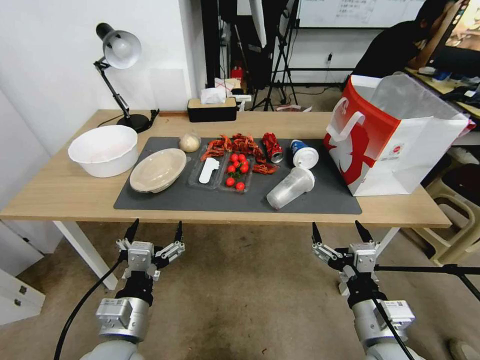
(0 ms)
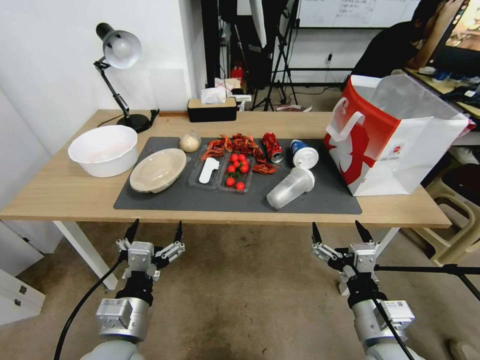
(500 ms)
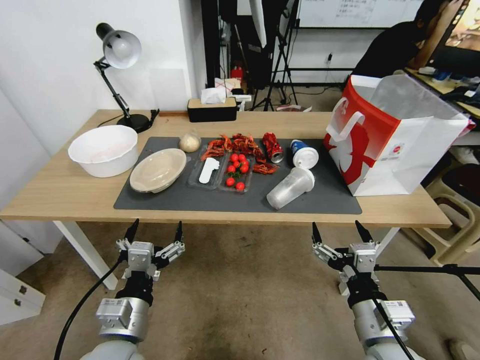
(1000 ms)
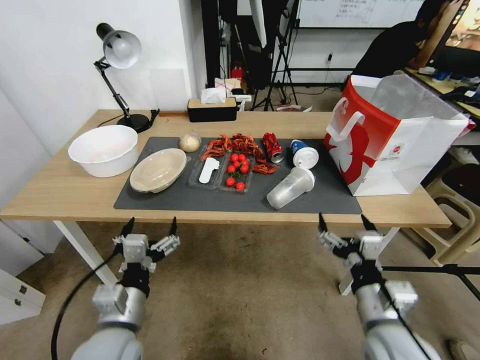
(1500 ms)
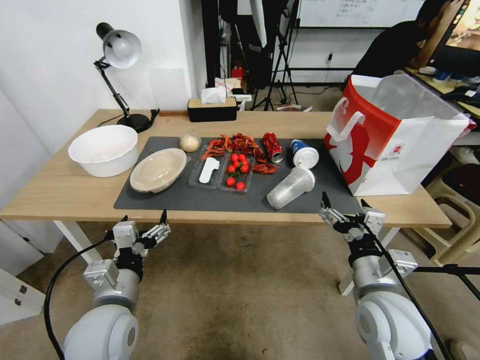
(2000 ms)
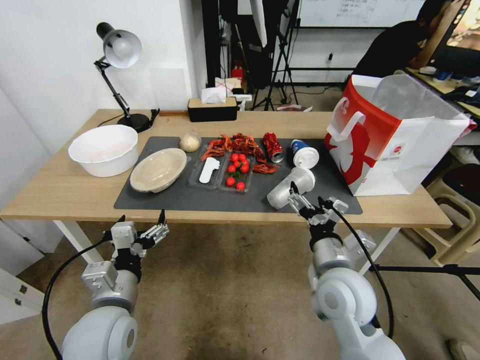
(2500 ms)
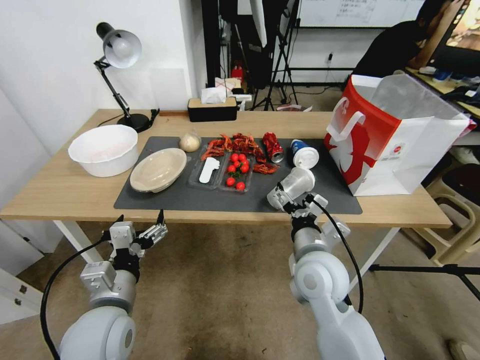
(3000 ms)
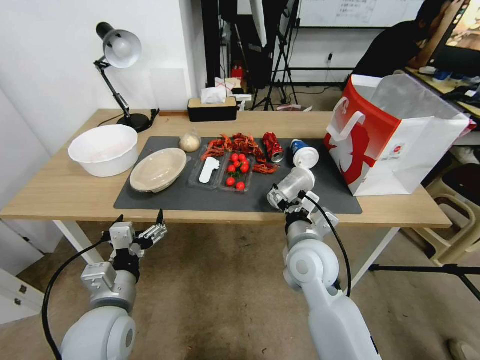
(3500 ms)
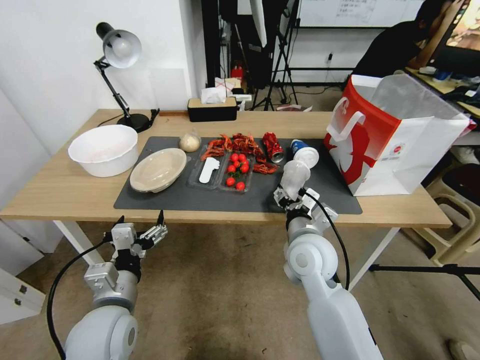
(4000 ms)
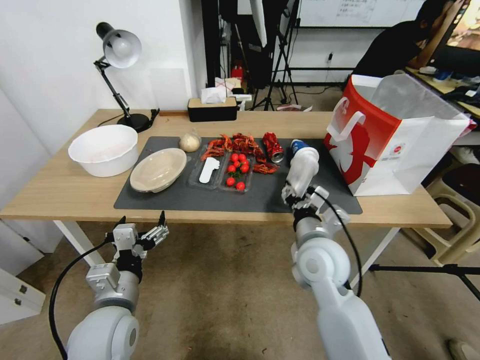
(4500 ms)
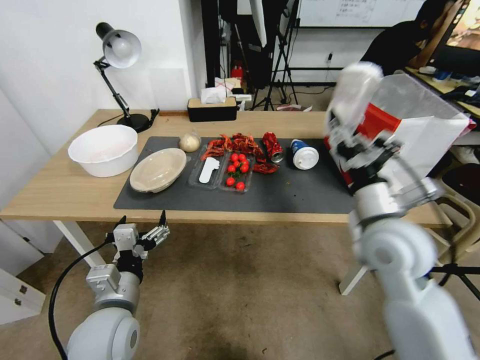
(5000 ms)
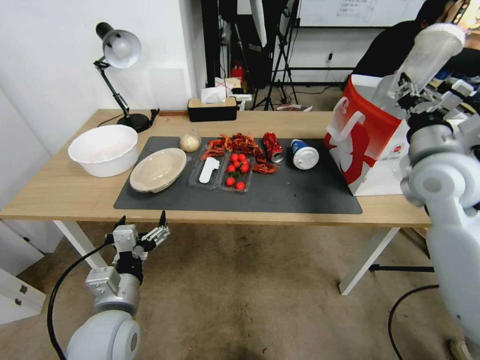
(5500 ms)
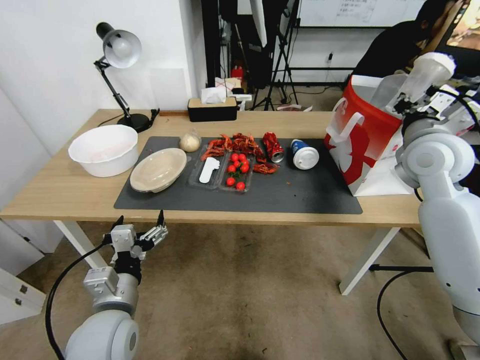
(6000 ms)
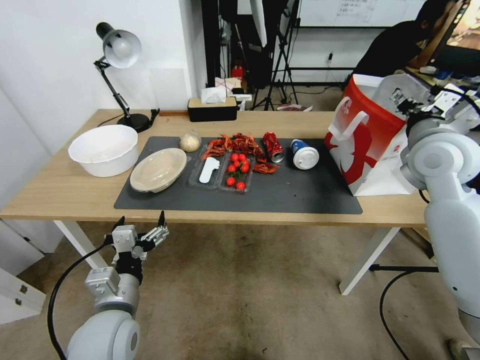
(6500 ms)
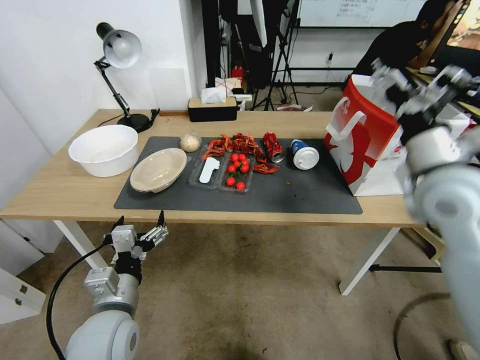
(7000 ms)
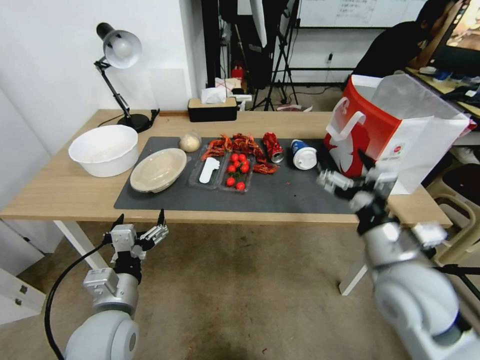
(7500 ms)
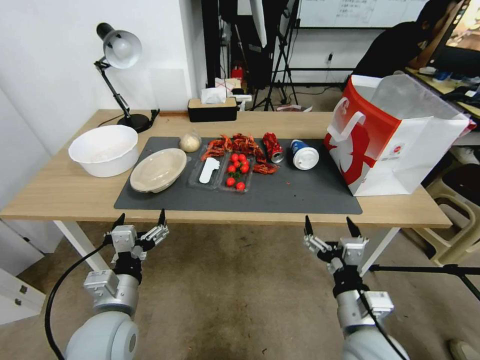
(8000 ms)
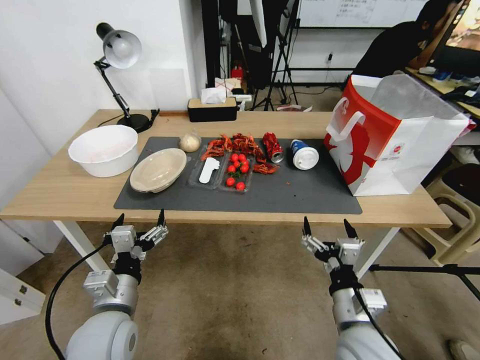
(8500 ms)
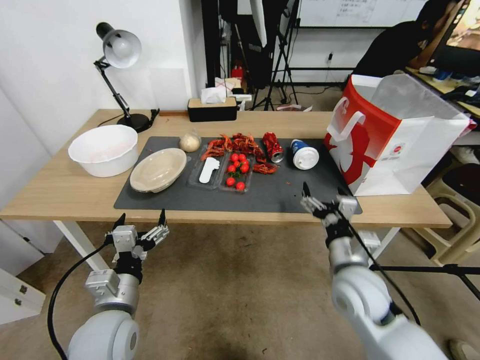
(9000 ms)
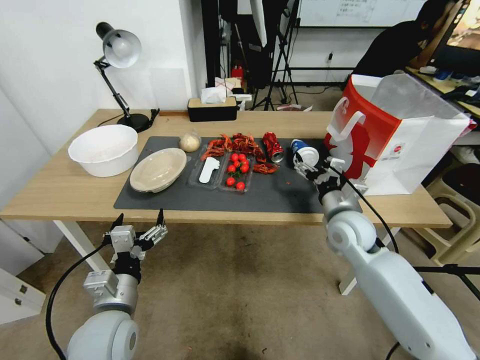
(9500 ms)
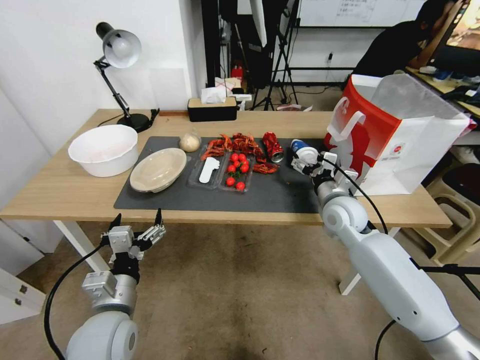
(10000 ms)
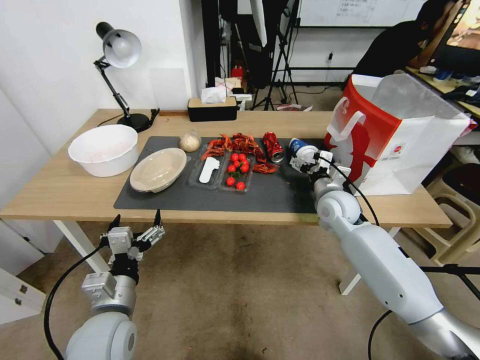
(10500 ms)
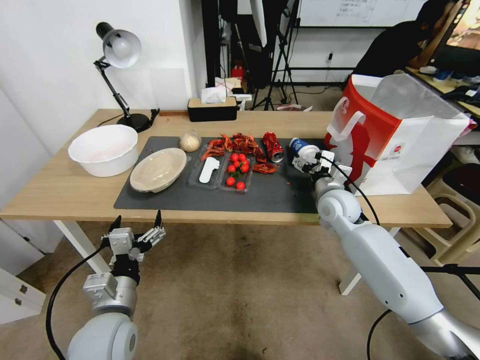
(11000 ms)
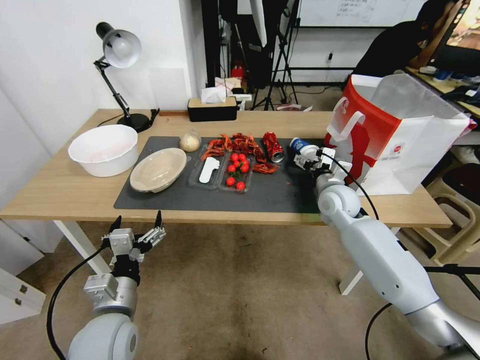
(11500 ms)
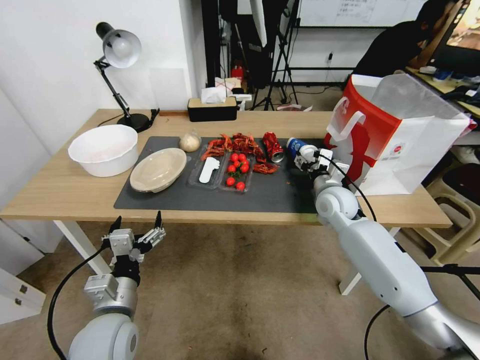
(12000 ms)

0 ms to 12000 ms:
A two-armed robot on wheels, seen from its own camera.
2000 ms to 4000 ms: The right gripper goes approximately 15 cm forward and to the left, and closes.
4000 ms to 6000 ms: The right gripper heads to the right, upward and forward, covering roughly 30 cm, and closes its fingers.
6000 ms to 8000 ms: The right gripper is displaced backward, downward and to the left by some 35 cm, and opens.
8000 ms to 10000 ms: The right gripper shifts some 25 cm forward.
10000 ms to 12000 ms: The right gripper closes its fingers.

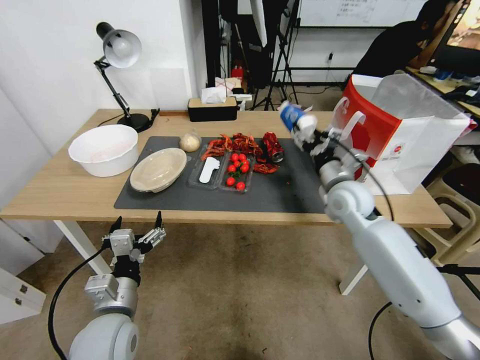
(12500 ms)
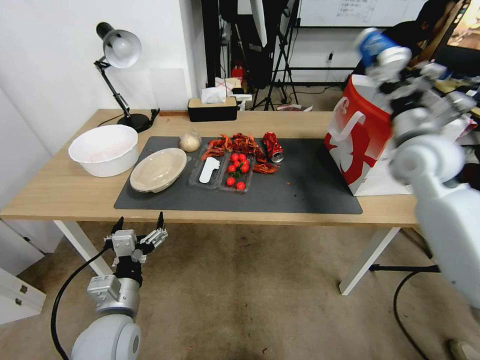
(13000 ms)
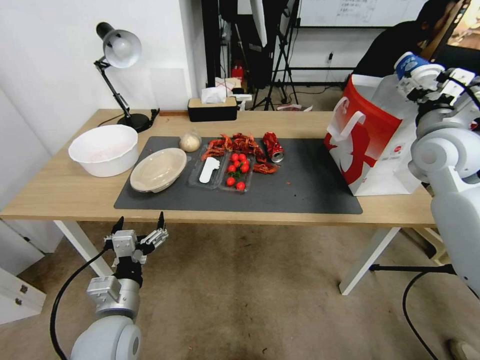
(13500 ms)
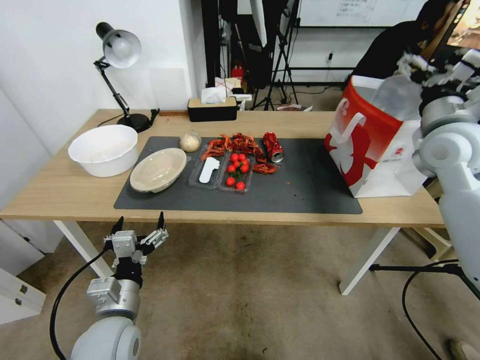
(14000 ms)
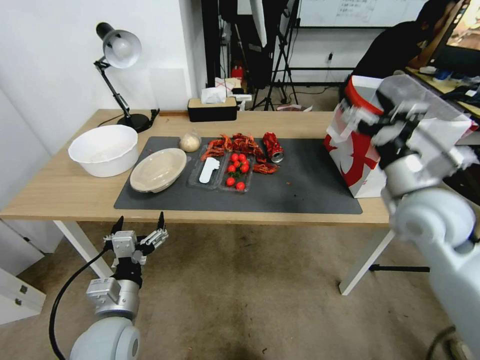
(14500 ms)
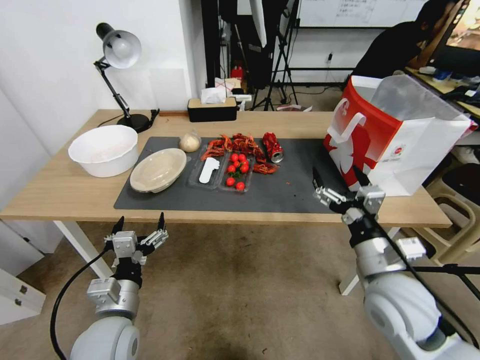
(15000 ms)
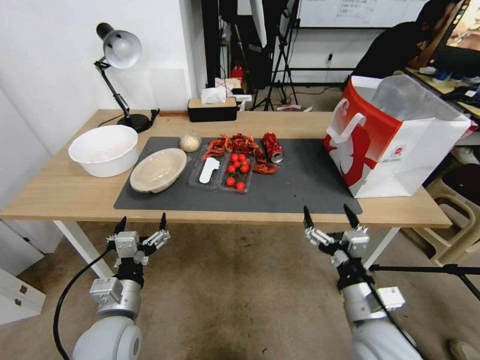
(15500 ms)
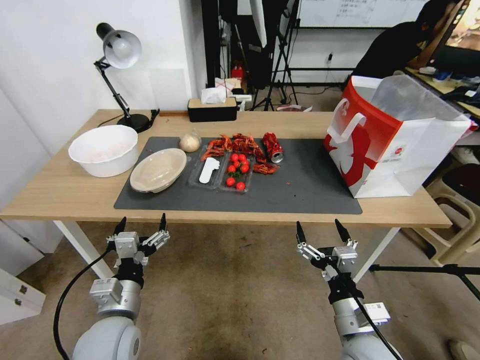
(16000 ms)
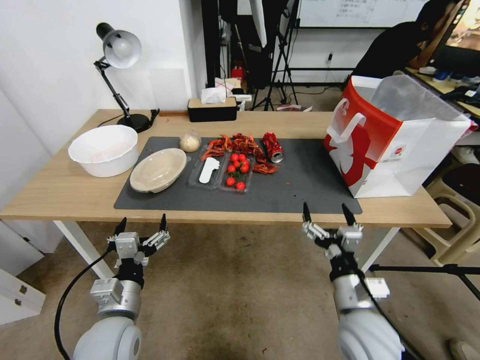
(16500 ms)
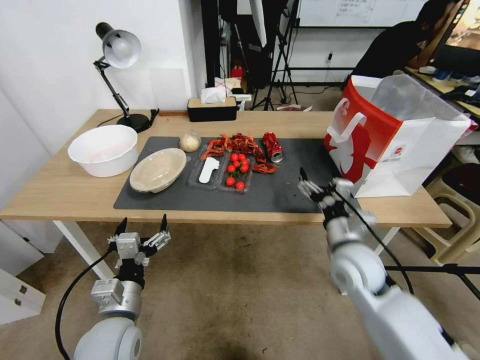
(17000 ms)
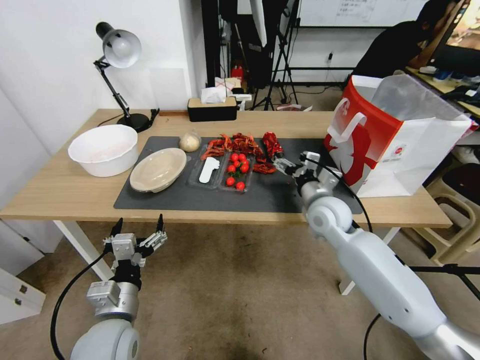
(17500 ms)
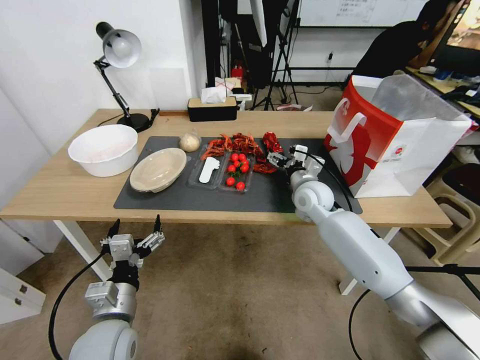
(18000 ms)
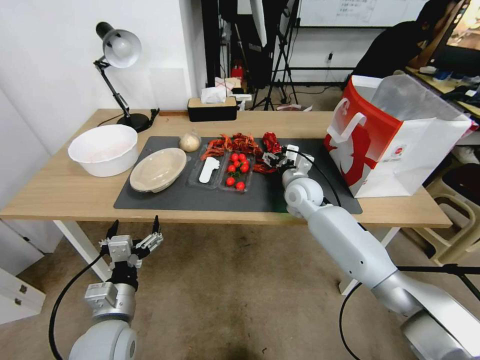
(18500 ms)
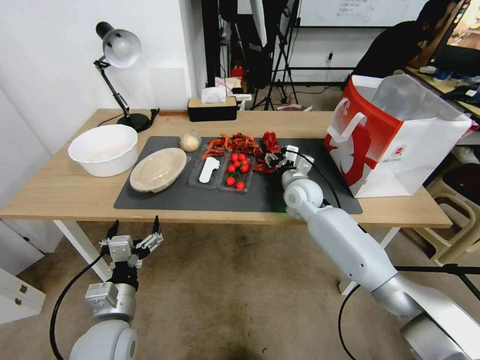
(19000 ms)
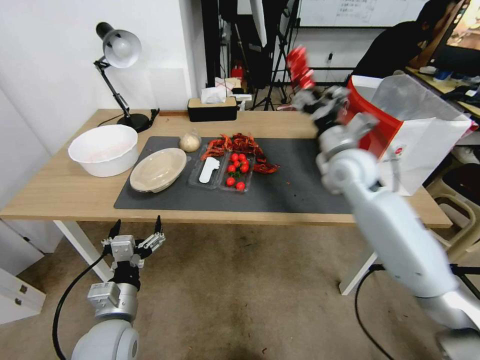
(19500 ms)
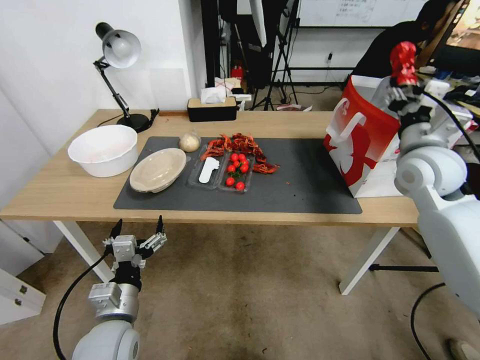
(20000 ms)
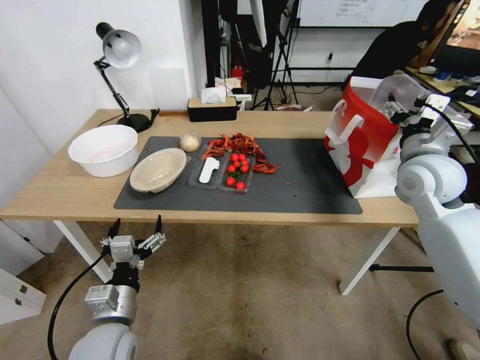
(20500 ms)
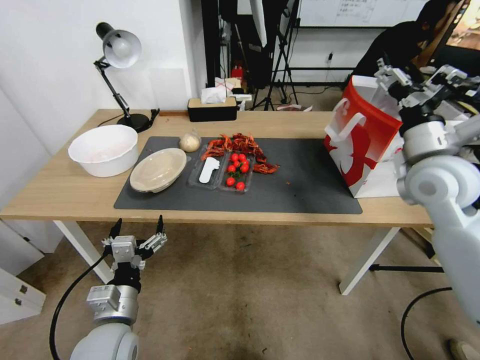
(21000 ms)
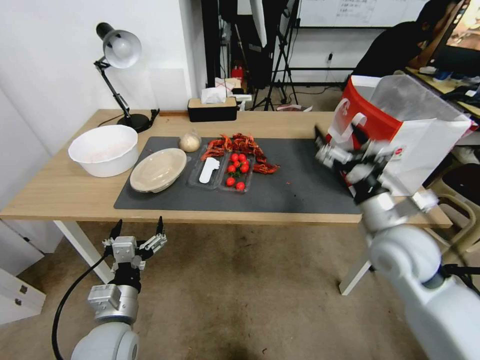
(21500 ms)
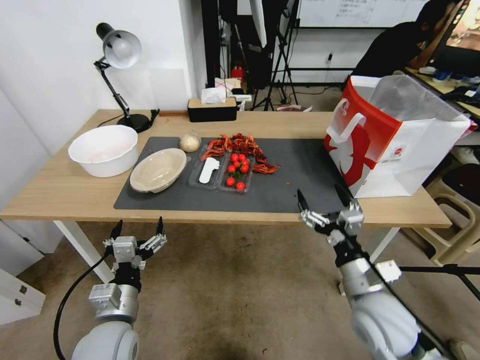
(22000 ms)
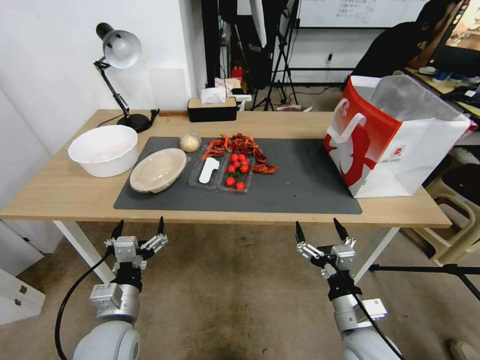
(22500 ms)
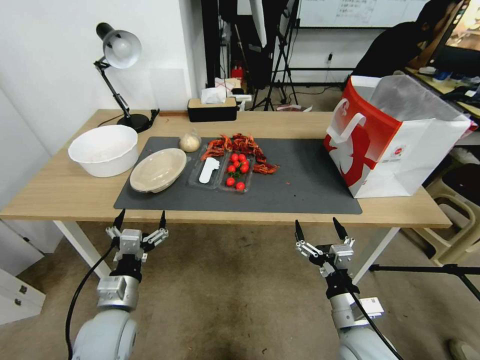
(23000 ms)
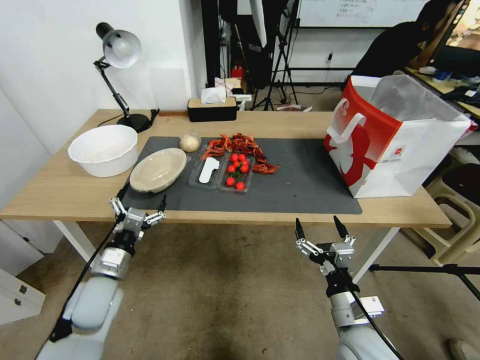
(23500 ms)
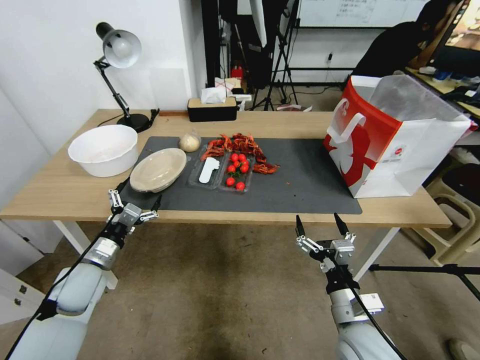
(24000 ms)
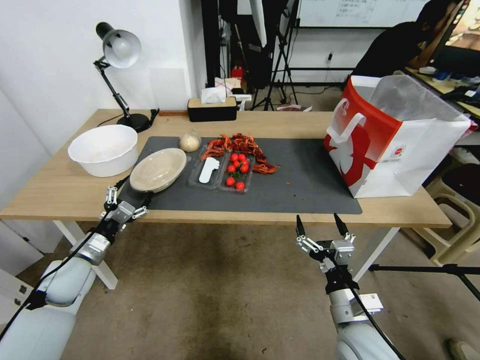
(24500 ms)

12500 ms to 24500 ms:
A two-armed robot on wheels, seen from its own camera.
12500 ms to 14500 ms: The right gripper moves backward, upward and to the right, roughly 15 cm, and opens up.
14500 ms to 16500 ms: The right gripper goes approximately 30 cm downward, backward and to the left.
16500 ms to 18500 ms: The right gripper is displaced forward by some 35 cm.
18500 ms to 20500 ms: The right gripper shifts approximately 25 cm to the right, upward and backward, and closes, then reopens.
20500 ms to 22500 ms: The right gripper travels backward, downward and to the left by some 35 cm.
22500 ms to 24500 ms: The left gripper heads to the left and forward, covering approximately 20 cm.

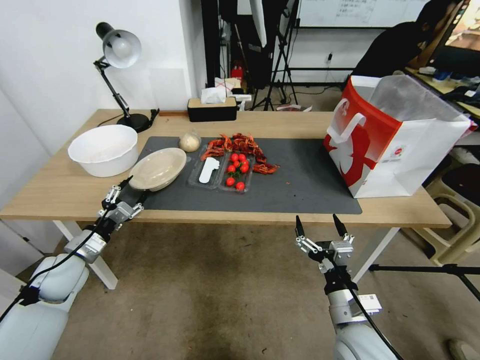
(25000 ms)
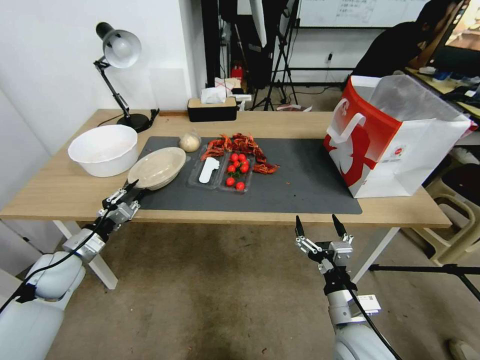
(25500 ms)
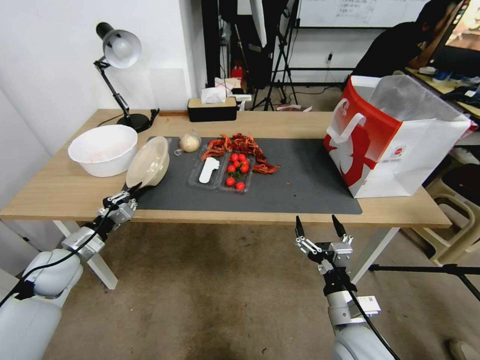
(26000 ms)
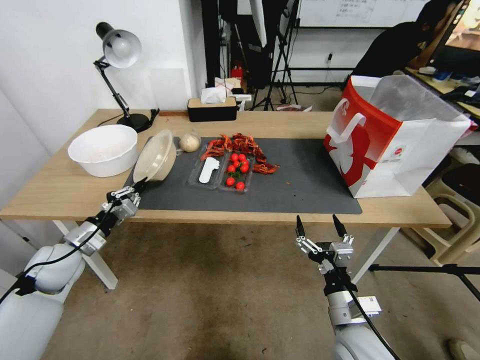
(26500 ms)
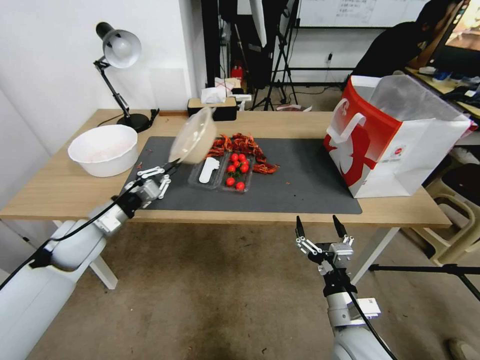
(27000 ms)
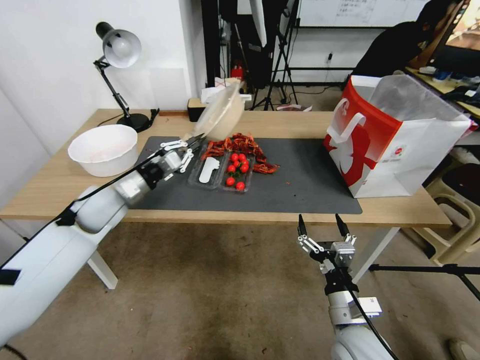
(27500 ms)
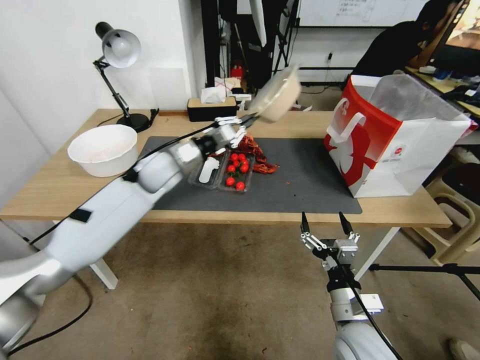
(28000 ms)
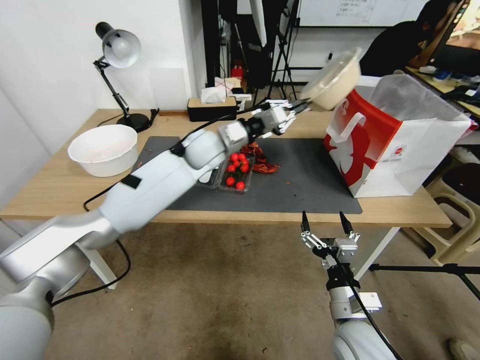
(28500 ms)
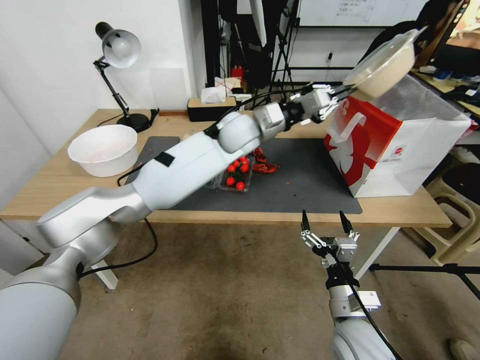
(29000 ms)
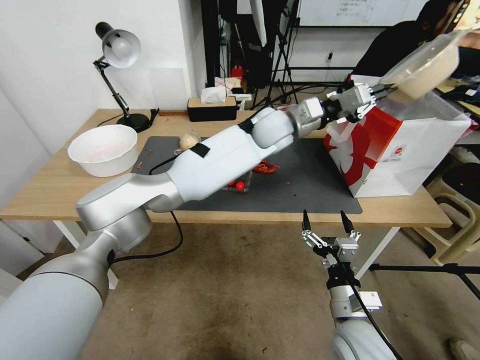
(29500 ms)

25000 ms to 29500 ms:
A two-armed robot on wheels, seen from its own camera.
25000 ms to 27000 ms: The left gripper is displaced upward by about 5 cm, and closes up.
27000 ms to 29500 ms: The left gripper is displaced to the right and forward by about 50 cm.
